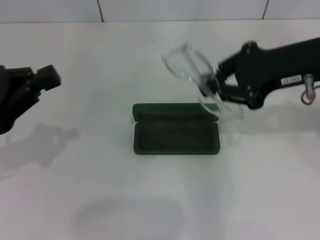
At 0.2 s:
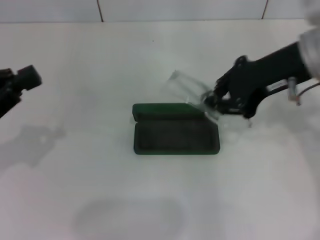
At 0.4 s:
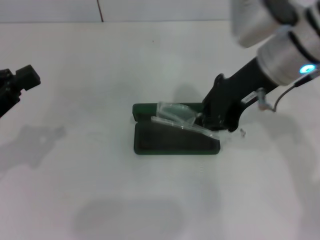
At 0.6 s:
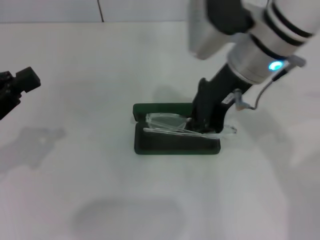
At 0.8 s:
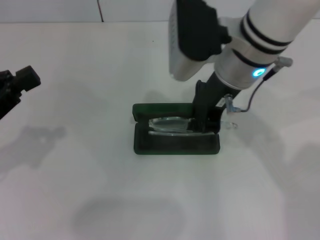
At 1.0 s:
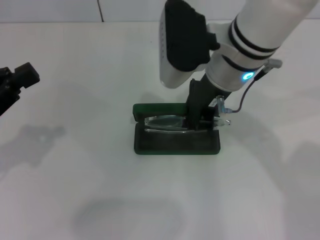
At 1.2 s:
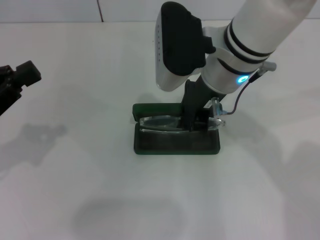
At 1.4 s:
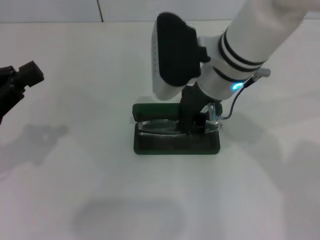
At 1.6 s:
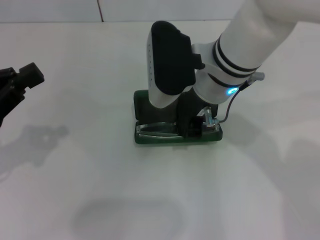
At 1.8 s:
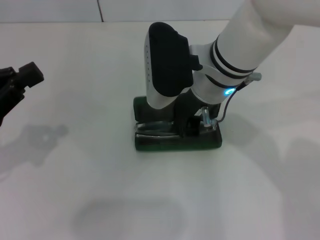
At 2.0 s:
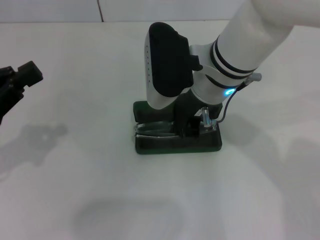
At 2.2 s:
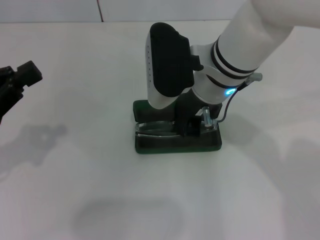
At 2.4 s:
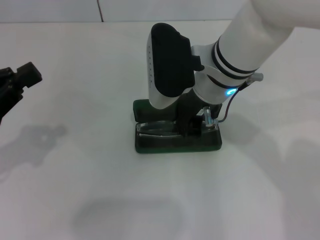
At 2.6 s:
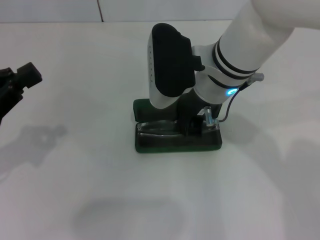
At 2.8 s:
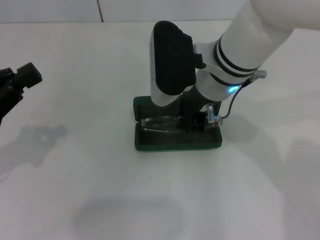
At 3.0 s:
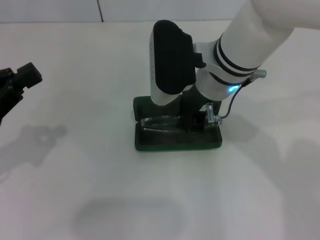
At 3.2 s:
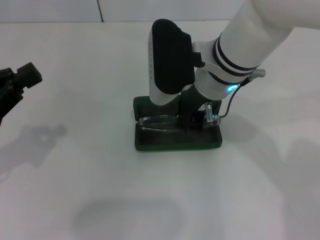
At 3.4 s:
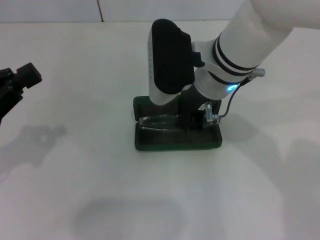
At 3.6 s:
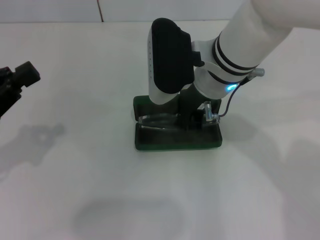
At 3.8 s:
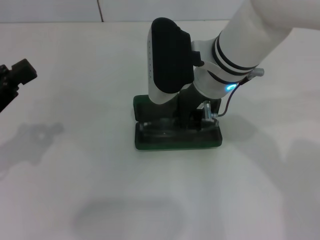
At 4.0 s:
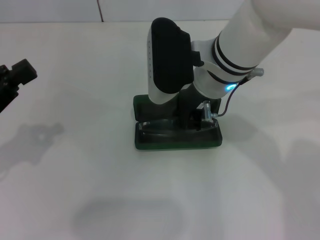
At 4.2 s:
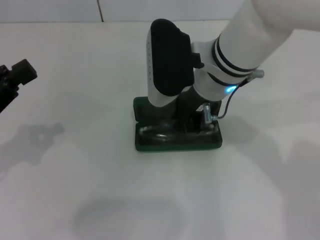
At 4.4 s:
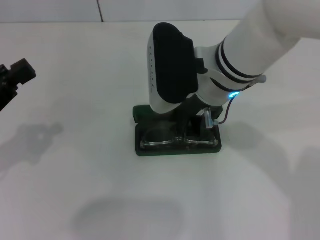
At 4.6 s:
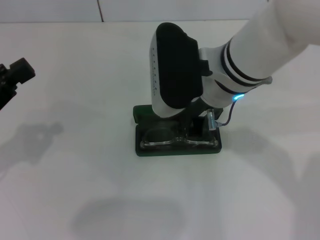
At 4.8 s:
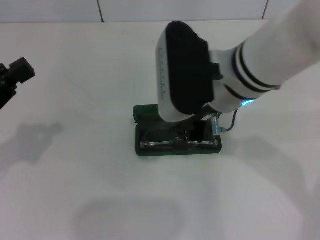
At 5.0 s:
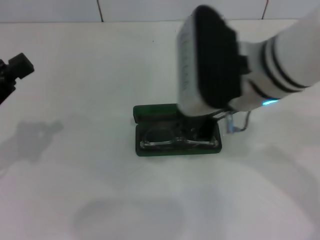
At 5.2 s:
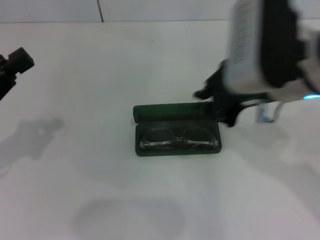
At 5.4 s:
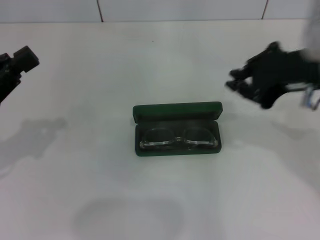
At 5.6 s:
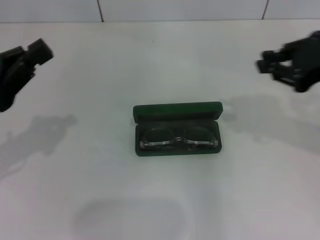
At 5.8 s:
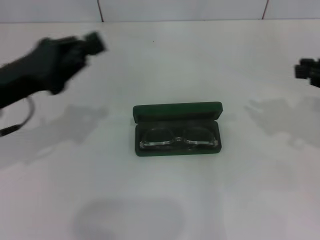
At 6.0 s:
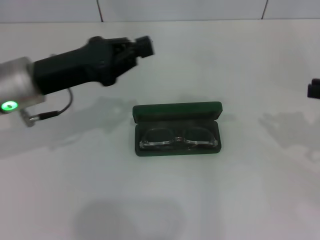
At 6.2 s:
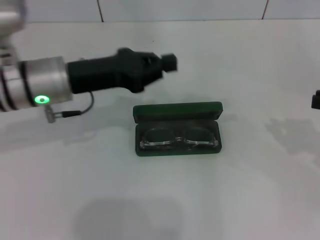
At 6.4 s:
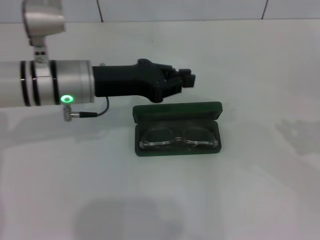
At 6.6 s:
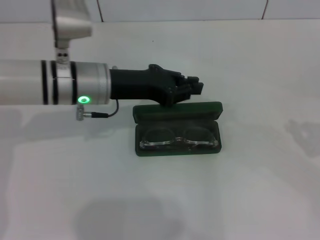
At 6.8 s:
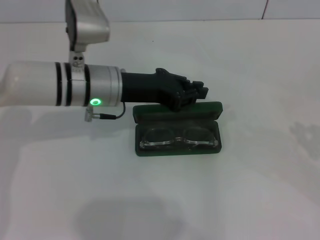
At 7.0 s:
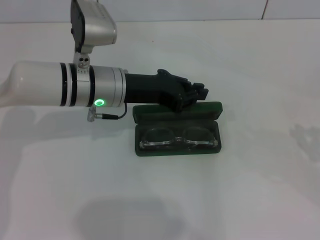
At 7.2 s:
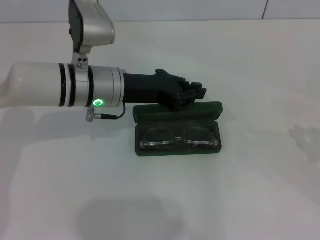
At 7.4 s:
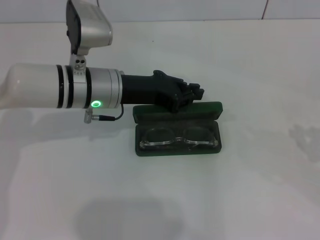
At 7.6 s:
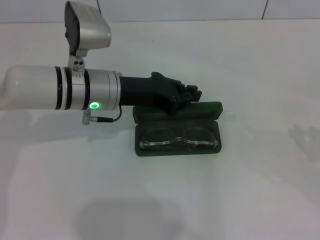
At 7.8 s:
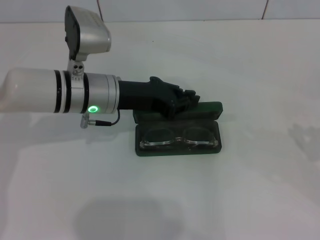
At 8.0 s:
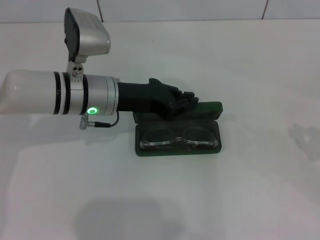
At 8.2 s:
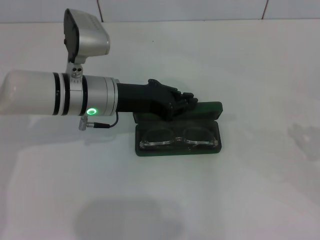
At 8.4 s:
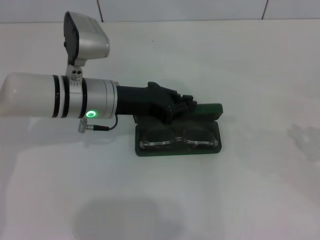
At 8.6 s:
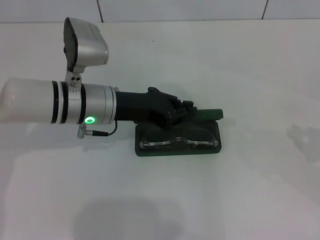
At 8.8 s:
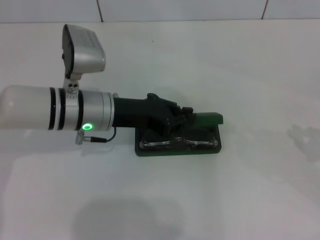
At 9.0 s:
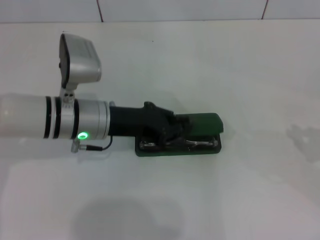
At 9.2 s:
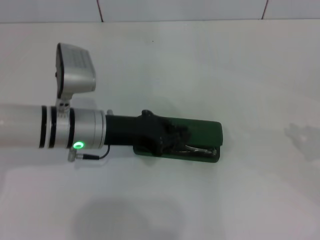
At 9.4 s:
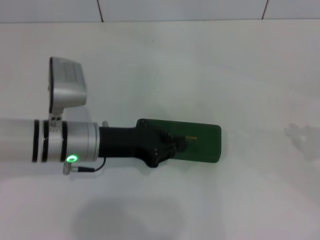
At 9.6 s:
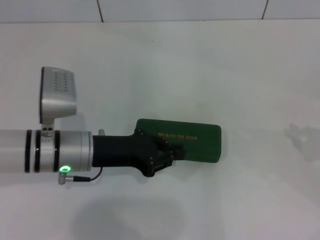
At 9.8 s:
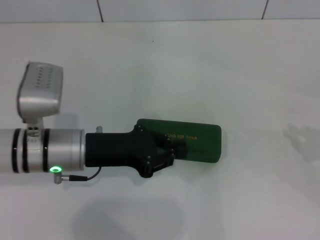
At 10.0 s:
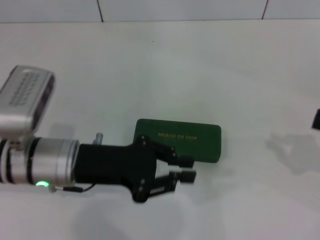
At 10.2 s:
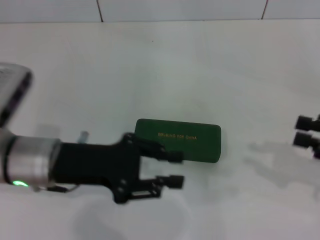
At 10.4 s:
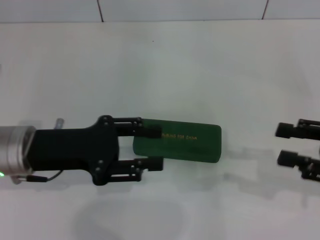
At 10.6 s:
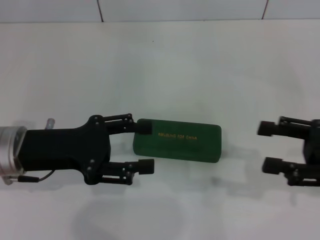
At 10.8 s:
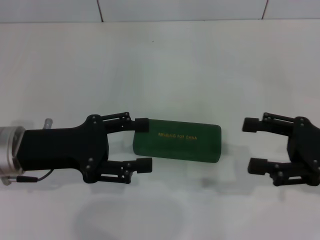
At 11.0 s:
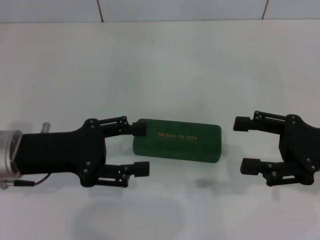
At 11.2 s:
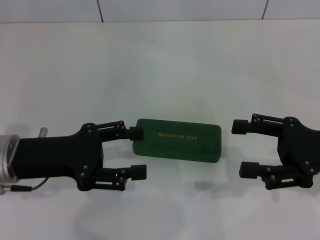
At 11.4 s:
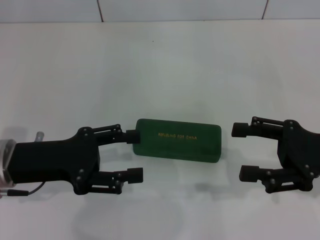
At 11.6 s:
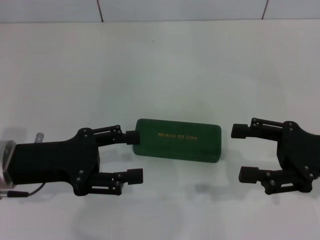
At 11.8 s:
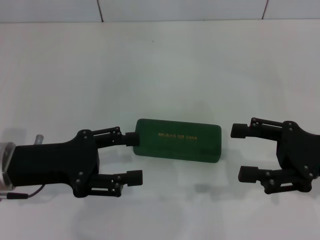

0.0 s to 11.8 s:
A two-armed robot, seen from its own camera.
Step, 0.0 to 4.0 s: Put the glasses into the case with your right hand.
Step, 4.4 to 9.4 s: Close the glasses case with your left hand.
0.0 to 1.4 s: The right gripper travels to the left by some 15 cm.
1.4 to 3.0 s: Neither gripper changes place.
3.0 to 4.4 s: The grippers move only a little.
4.4 to 6.0 s: The left gripper shifts roughly 15 cm to the right and forward. Meanwhile the right gripper moves to the right, roughly 30 cm.
6.0 to 7.4 s: The left gripper goes some 10 cm to the right. The right gripper shifts some 5 cm downward.
7.4 to 8.8 s: The grippers move only a little.
8.8 to 10.4 s: The left gripper travels to the left and backward by about 10 cm, and opens up; the right gripper goes approximately 5 cm to the left.
10.4 to 11.8 s: The left gripper opens; the right gripper shifts by about 5 cm, and opens.

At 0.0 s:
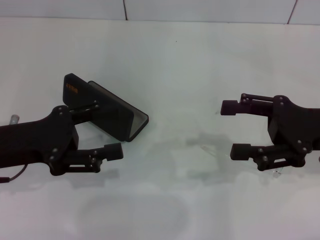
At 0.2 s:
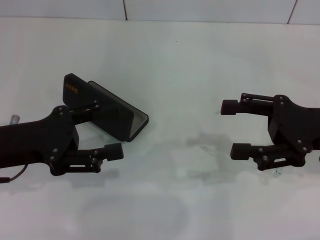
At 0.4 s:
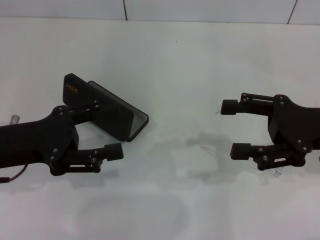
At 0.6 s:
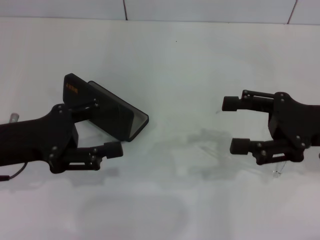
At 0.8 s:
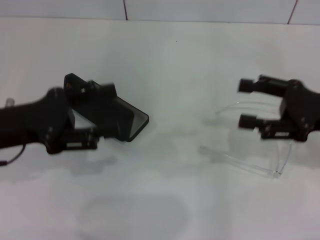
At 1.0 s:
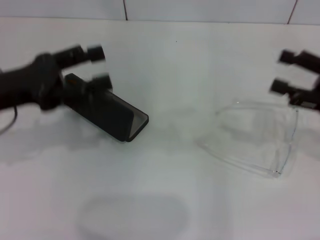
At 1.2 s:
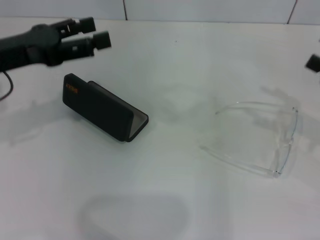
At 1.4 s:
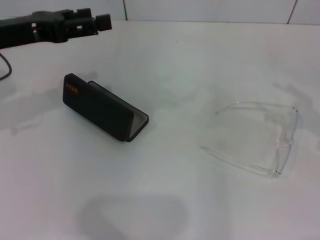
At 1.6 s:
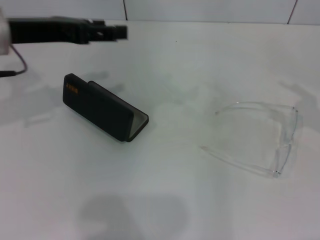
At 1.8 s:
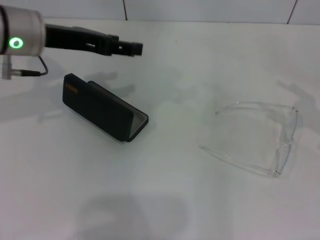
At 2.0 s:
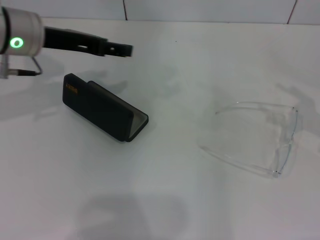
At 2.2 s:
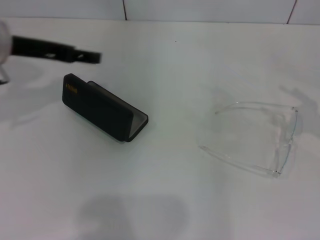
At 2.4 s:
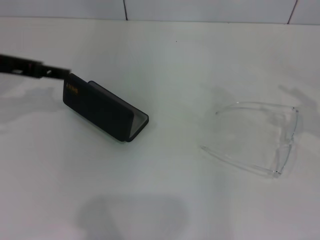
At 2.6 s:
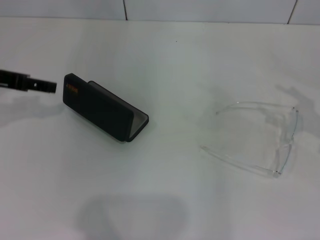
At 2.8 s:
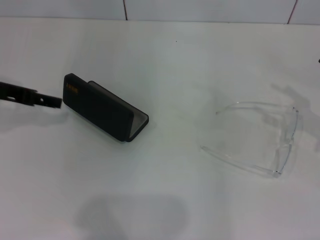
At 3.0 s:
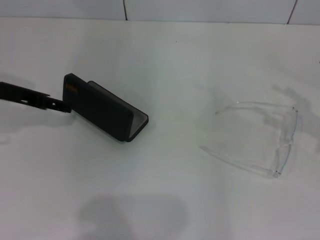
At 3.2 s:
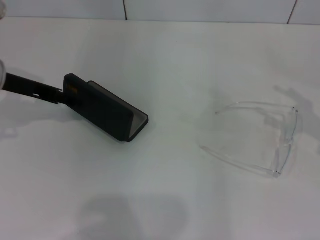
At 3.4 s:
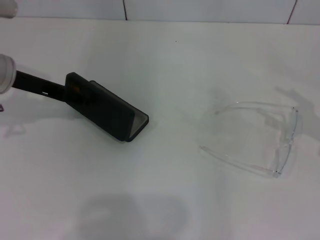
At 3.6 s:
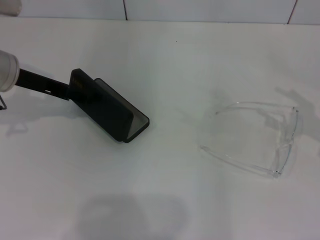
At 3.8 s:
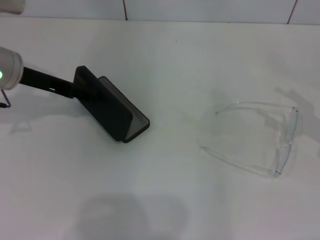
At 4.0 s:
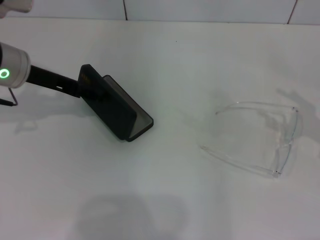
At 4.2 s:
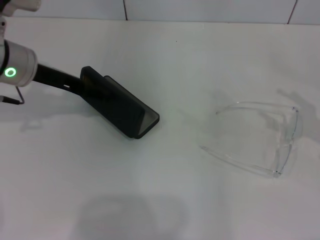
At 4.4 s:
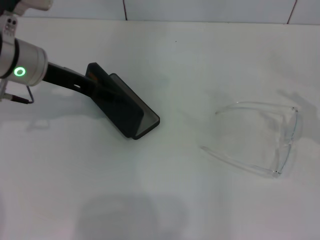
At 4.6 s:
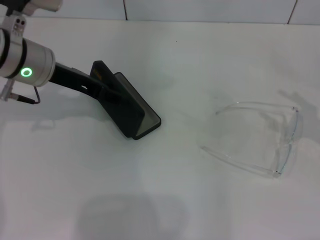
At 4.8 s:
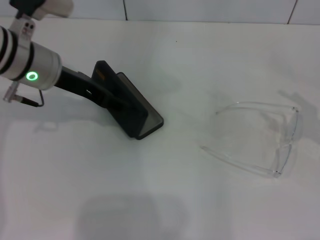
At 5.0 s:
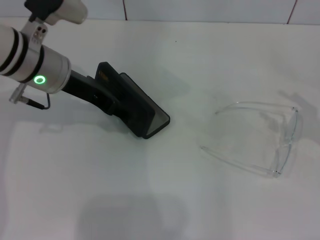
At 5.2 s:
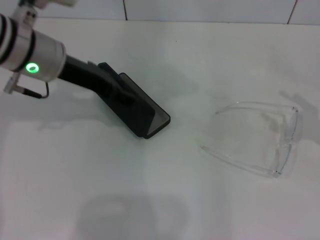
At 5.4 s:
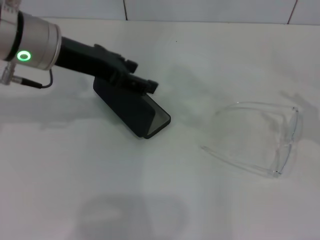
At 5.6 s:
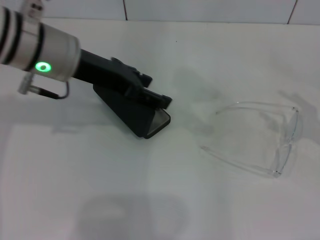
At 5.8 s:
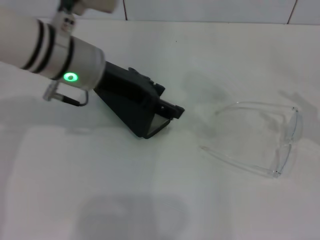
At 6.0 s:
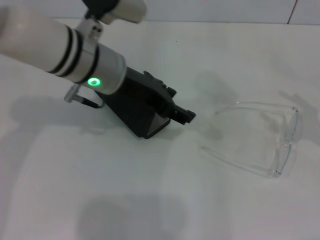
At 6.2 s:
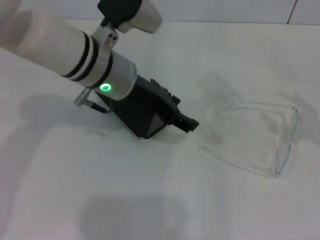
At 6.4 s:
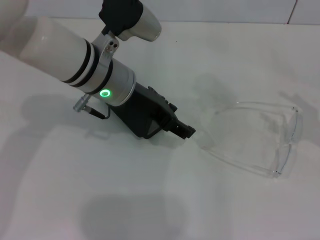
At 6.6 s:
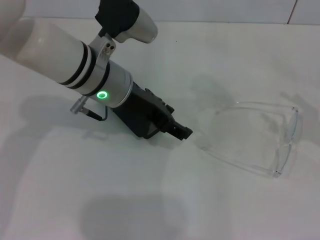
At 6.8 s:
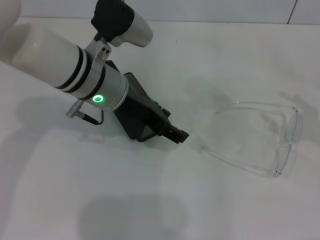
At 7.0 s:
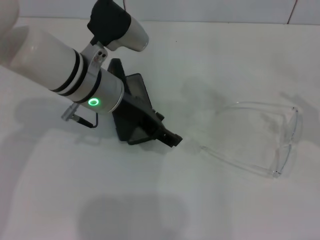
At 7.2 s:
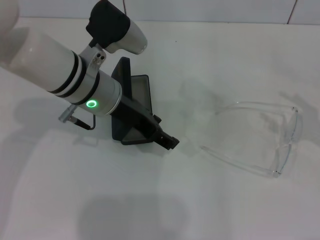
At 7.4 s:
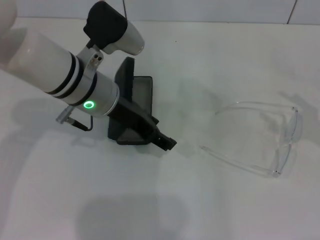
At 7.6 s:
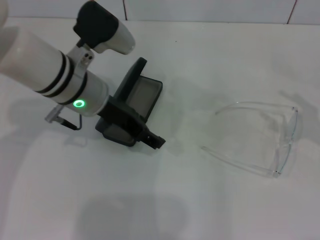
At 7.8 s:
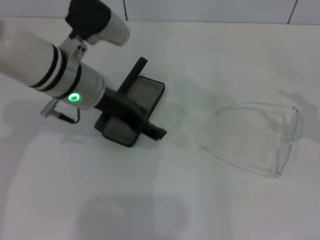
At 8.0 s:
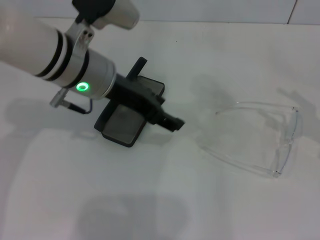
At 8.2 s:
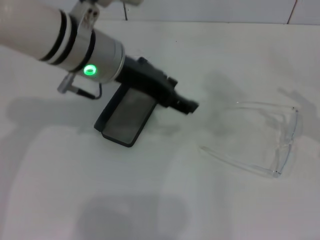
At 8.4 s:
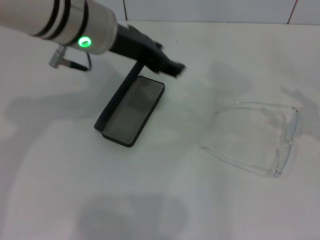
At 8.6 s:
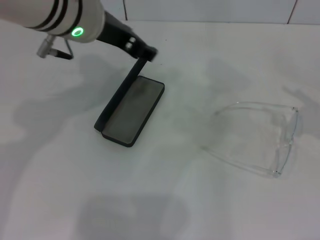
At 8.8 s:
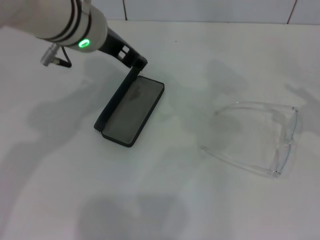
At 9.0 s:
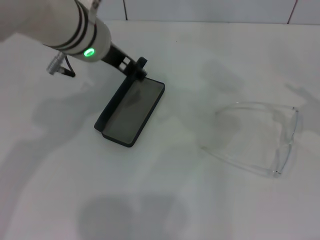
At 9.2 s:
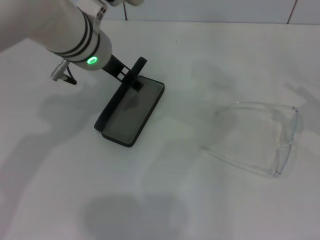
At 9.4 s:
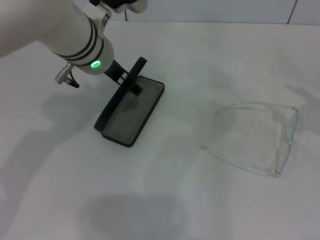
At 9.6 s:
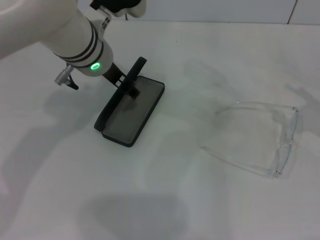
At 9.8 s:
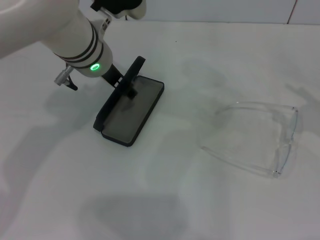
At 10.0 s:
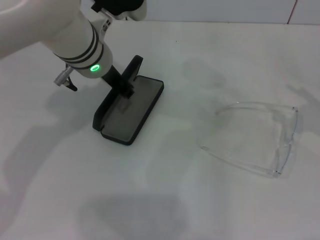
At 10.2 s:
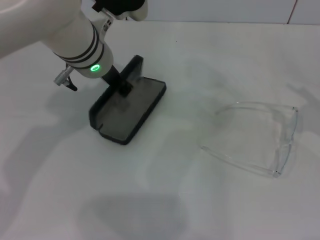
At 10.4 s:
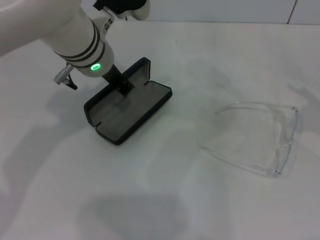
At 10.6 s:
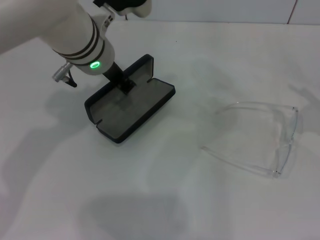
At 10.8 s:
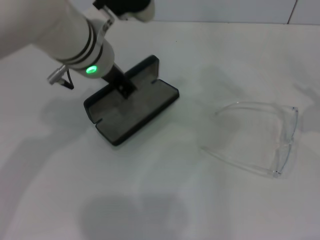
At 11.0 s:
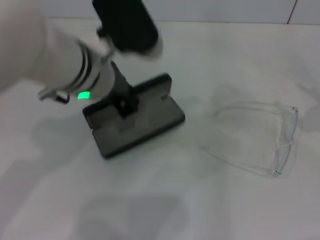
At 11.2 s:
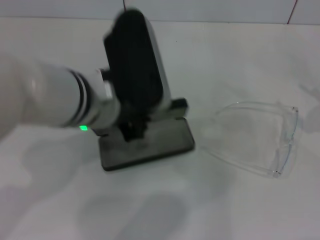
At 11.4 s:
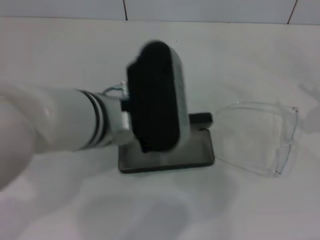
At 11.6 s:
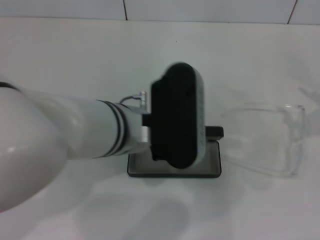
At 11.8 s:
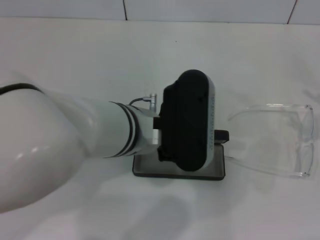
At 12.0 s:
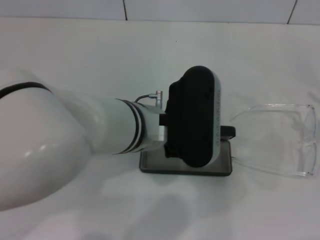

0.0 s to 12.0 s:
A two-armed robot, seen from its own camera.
Step, 0.0 to 10.4 s: Grab the glasses case with your left hand.
0.0 to 1.6 s: The left gripper shifts about 15 cm forward and upward. Meanwhile the right gripper goes approximately 10 cm to the right.
1.6 to 3.0 s: The left gripper moves downward, approximately 5 cm.
3.0 to 4.4 s: The left gripper goes some 5 cm to the right.
4.4 to 6.0 s: The left gripper travels to the right by some 10 cm.
6.0 to 7.6 s: The grippers move only a little.
7.6 to 9.0 s: The left gripper goes roughly 5 cm upward.
9.0 to 10.4 s: The left gripper closes its fingers.
10.4 to 12.0 s: The left gripper moves backward and to the right, roughly 15 cm.
